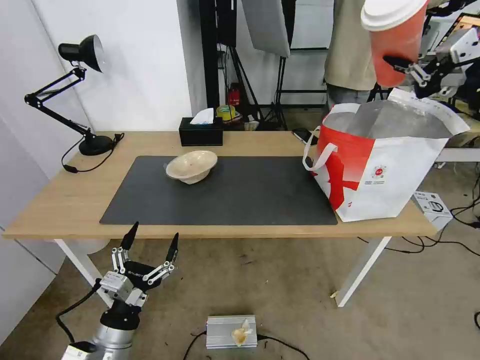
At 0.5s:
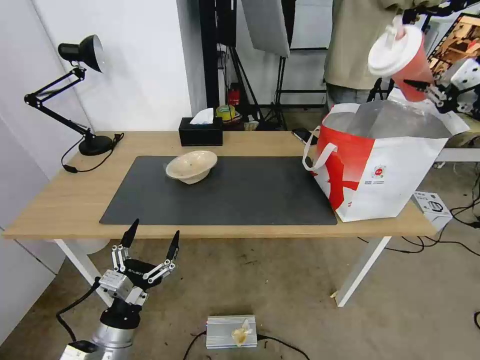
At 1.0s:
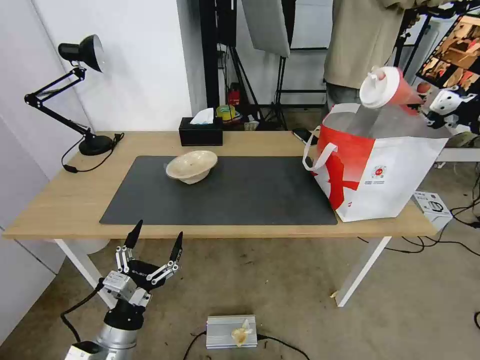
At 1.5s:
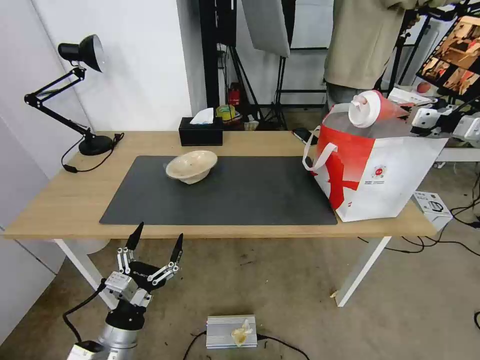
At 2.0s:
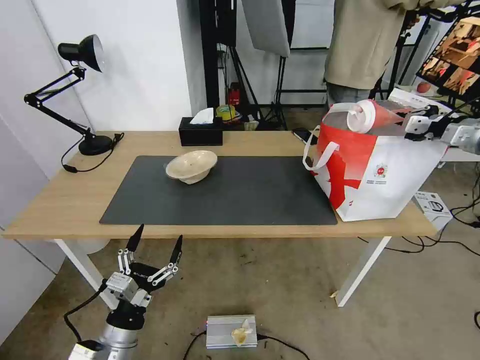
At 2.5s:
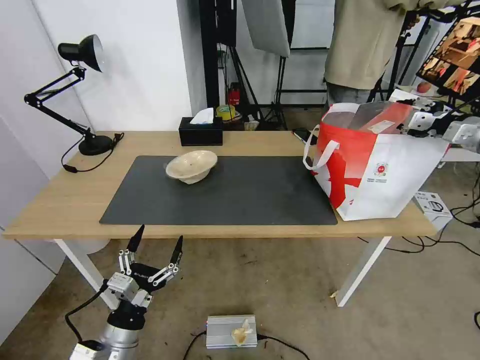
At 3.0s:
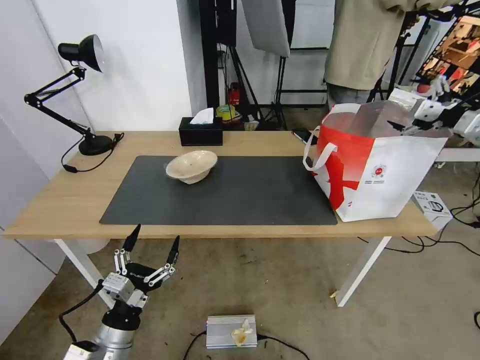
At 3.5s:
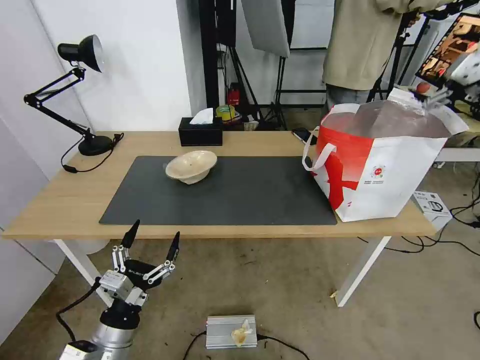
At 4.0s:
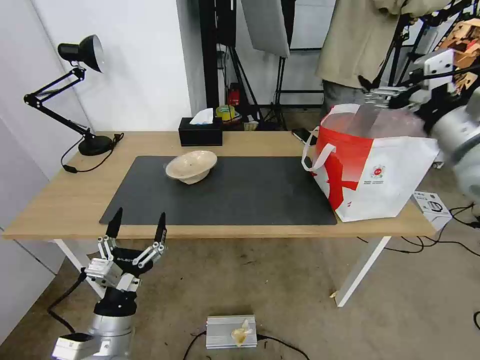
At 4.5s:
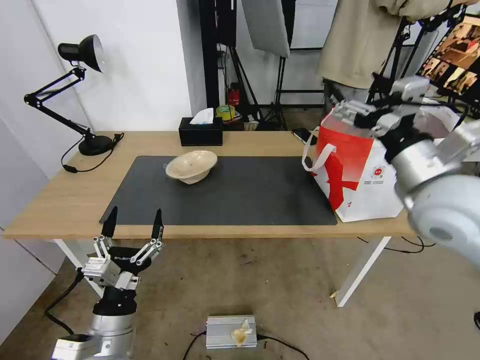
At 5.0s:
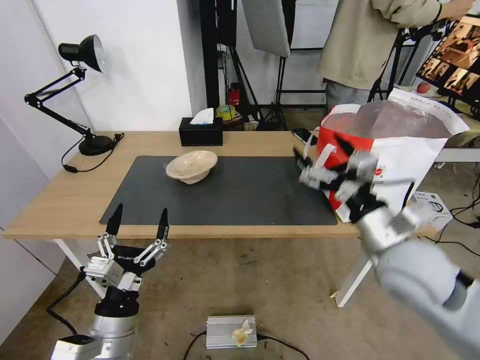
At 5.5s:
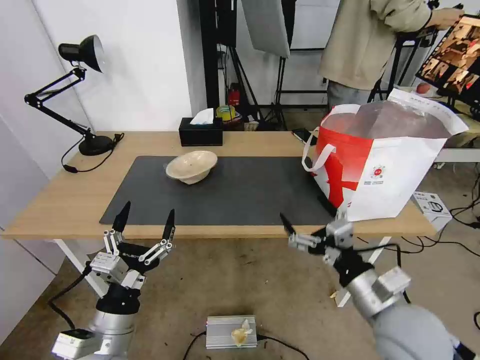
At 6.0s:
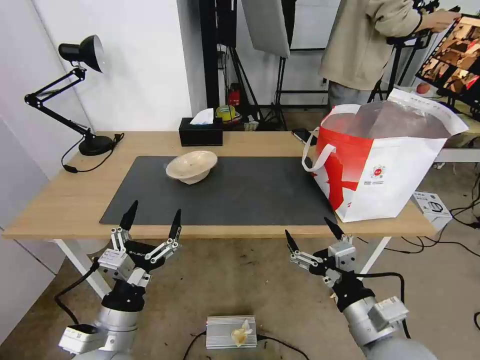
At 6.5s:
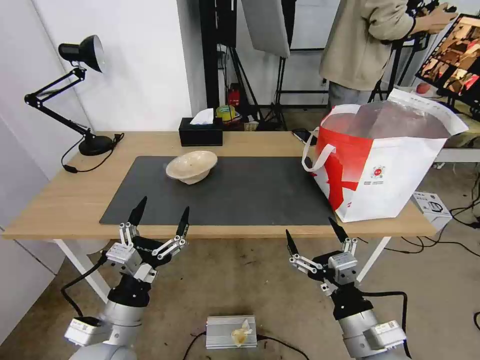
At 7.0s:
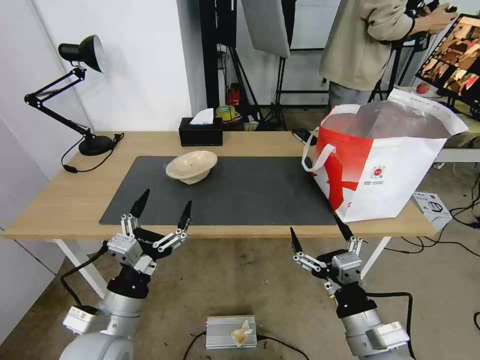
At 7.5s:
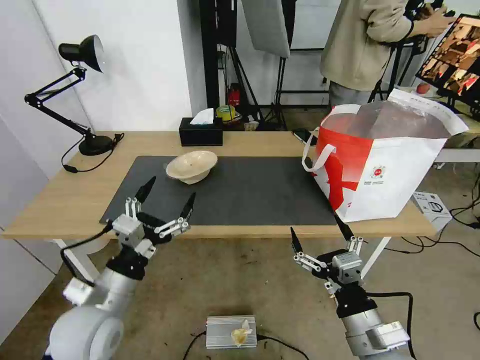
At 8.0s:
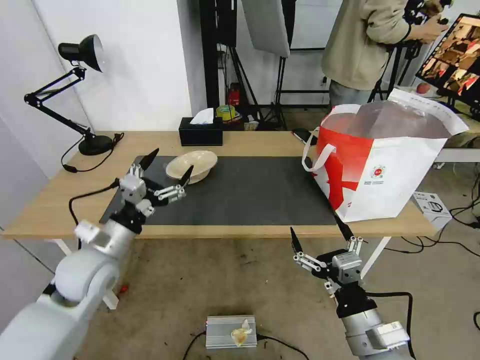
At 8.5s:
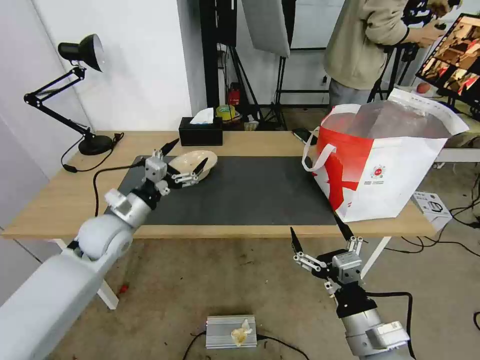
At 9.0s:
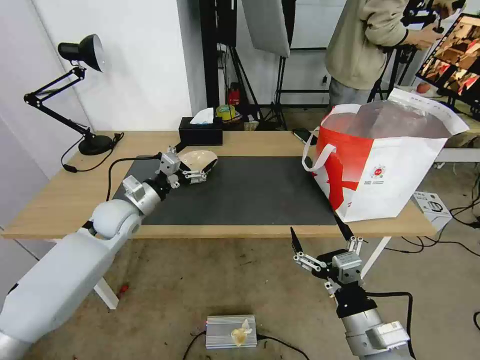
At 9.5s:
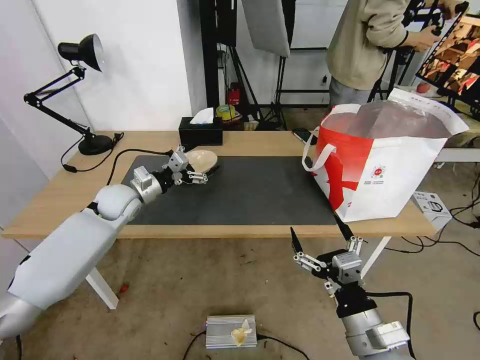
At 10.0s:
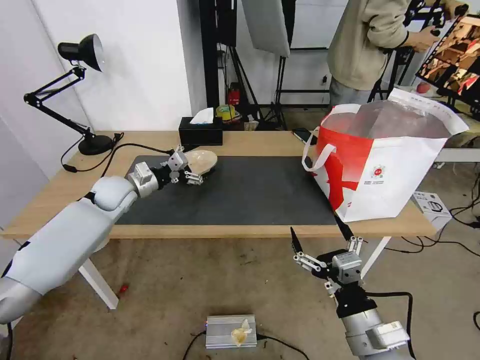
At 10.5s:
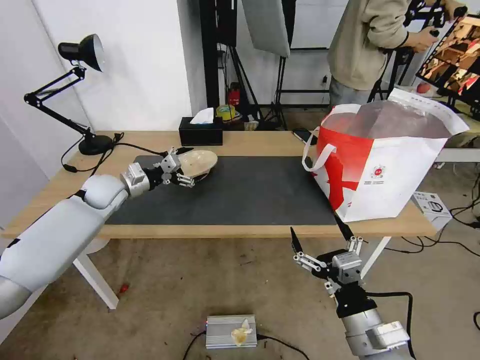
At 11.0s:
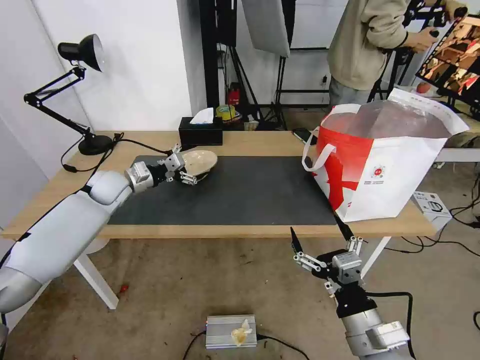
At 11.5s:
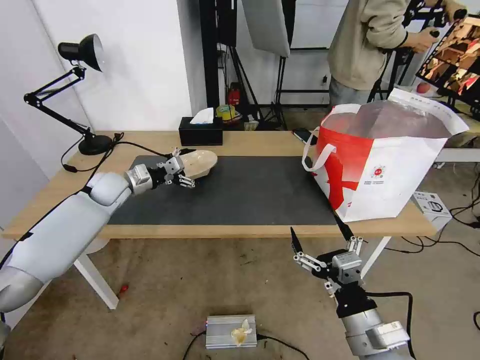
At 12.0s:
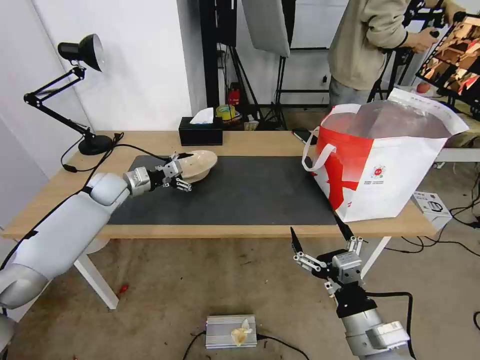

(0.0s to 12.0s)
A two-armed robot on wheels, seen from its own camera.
Task of the whole recording: Pick up the trash from the table and place it into the takeout bag.
0.0s - 2.0s: The right gripper moves forward, downward and to the right, roughly 15 cm.
2.0s - 4.0s: The right gripper is displaced to the left and backward by roughly 20 cm, and opens up.
4.0s - 6.0s: The right gripper moves downward, backward and to the left, roughly 35 cm.
6.0s - 8.0s: The left gripper moves forward and to the left, some 15 cm.
8.0s - 10.0s: The left gripper is displaced forward by some 20 cm.
10.0s - 12.0s: The grippers make only small movements.

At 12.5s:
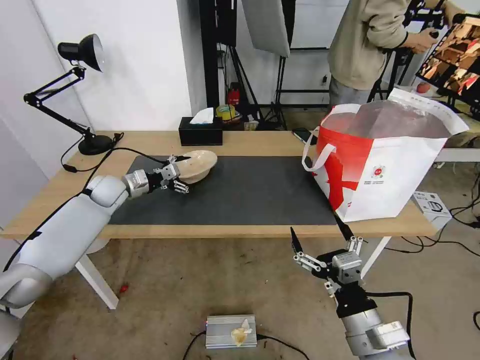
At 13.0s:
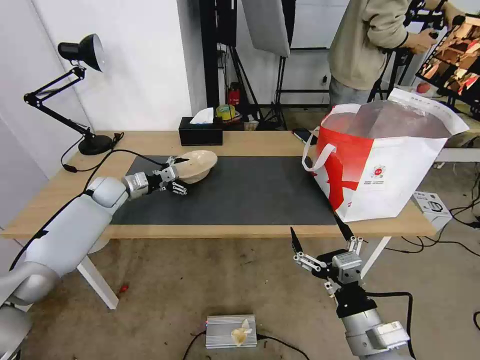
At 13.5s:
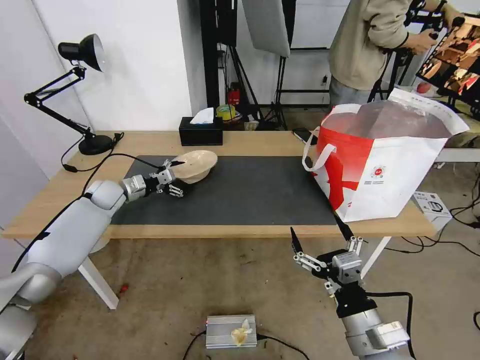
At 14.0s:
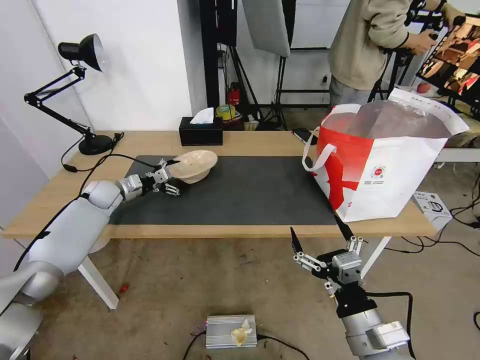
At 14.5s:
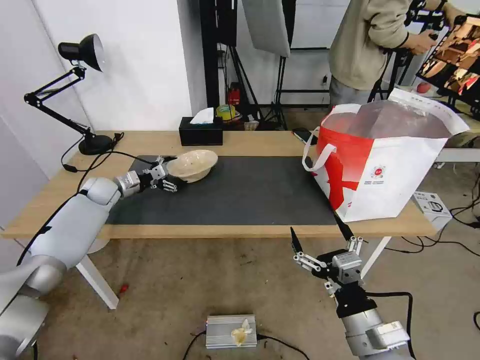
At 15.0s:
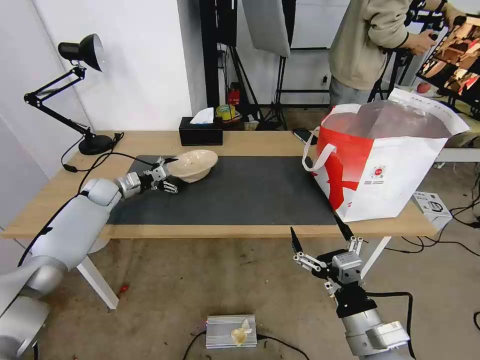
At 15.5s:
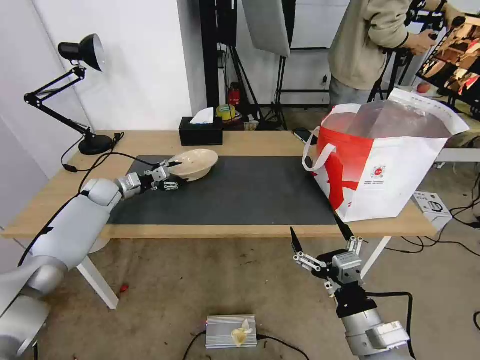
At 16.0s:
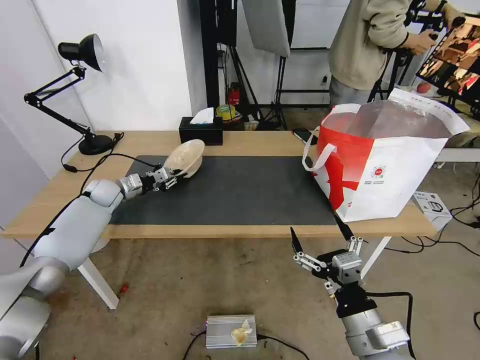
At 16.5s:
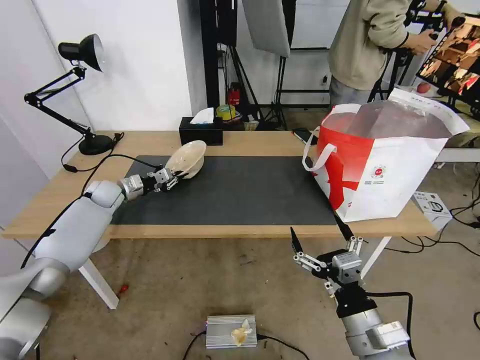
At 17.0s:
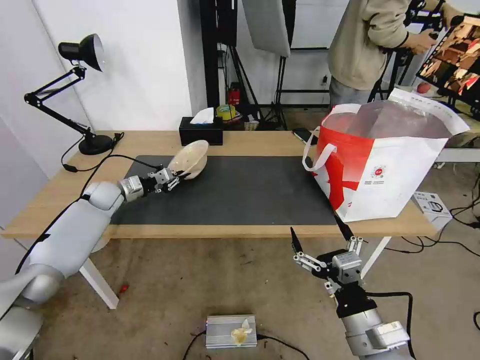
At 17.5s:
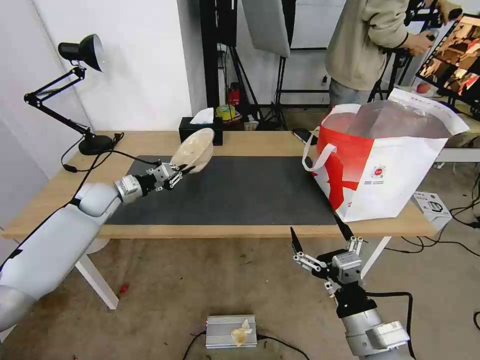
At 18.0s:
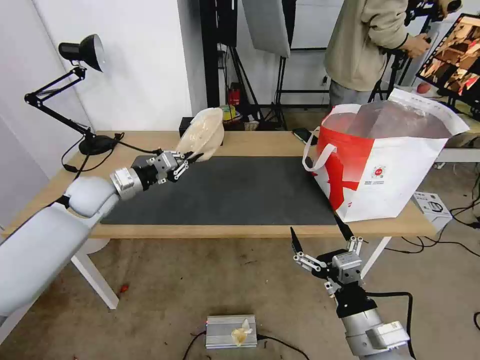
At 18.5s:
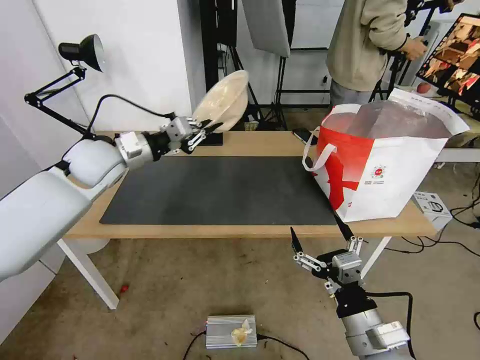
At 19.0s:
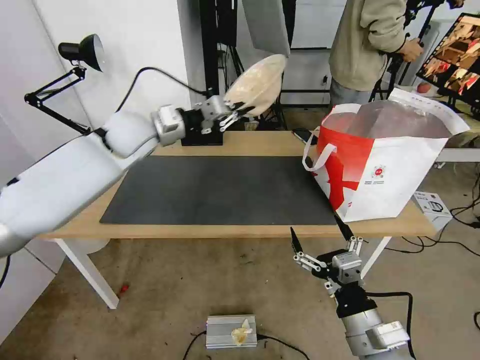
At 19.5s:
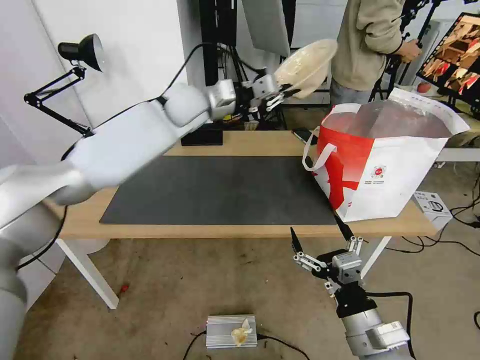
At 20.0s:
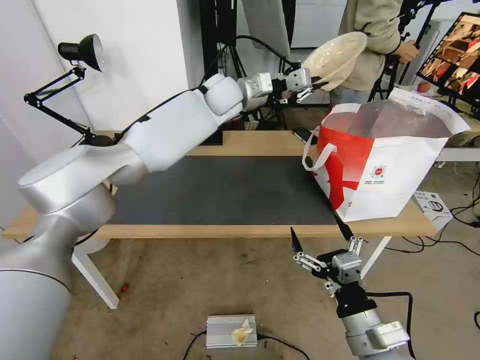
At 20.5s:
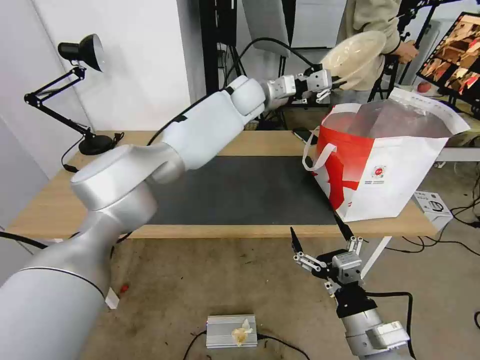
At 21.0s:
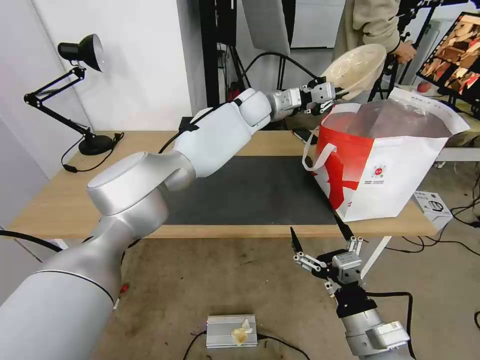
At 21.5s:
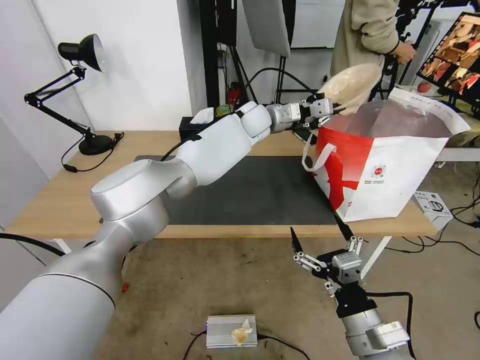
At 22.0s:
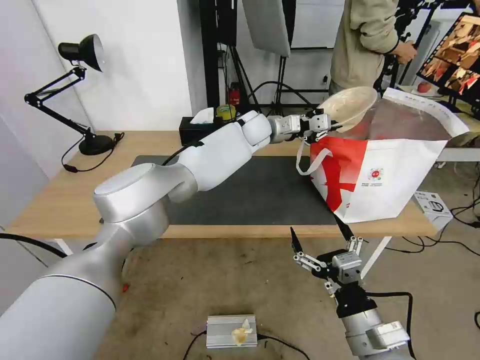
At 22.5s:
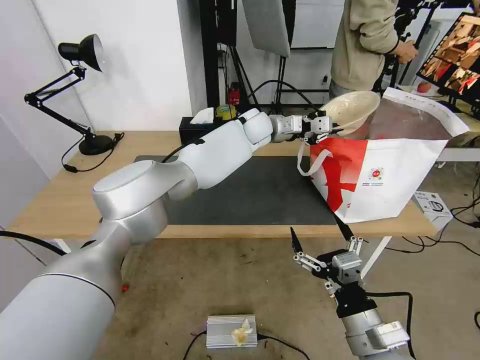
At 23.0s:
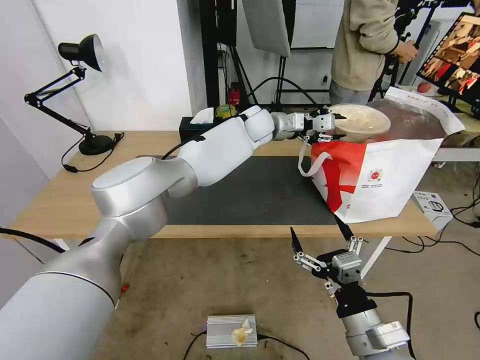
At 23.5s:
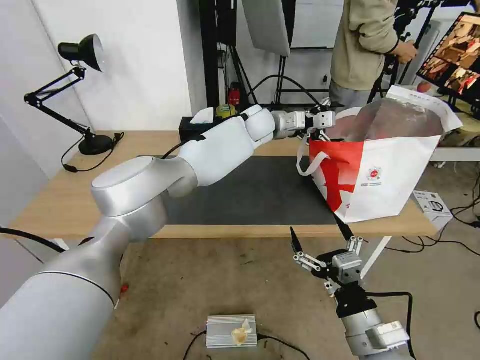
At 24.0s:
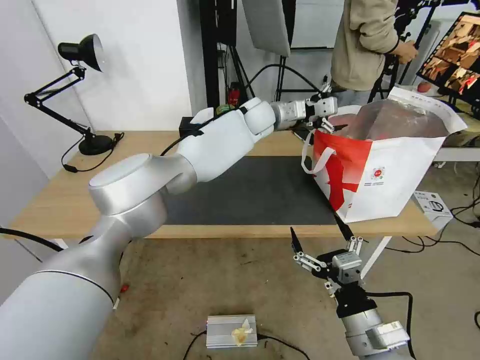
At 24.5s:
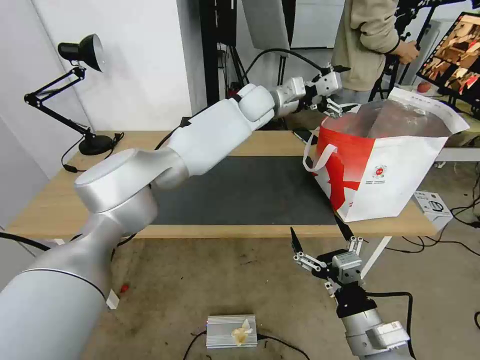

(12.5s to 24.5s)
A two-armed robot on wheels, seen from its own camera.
Task of the whole recording: Pick up the trash from the table and place it into the takeout bag.
12.5s - 14.5s: The left gripper ends up approximately 5 cm from where it was.
14.5s - 16.5s: The left gripper closes.
16.5s - 18.5s: The left gripper goes some 25 cm upward, to the right and backward.
18.5s - 20.5s: The left gripper travels to the right and forward by approximately 35 cm.
20.5s - 22.5s: The left gripper shifts about 10 cm downward.
22.5s - 24.5s: The left gripper moves upward, some 5 cm, and opens its fingers.

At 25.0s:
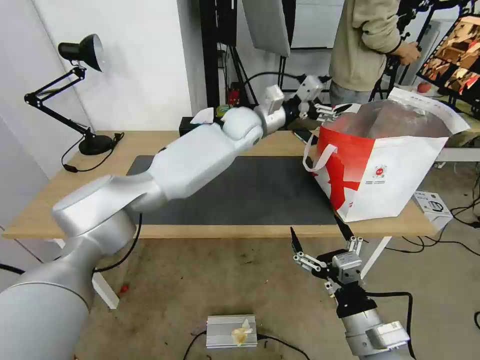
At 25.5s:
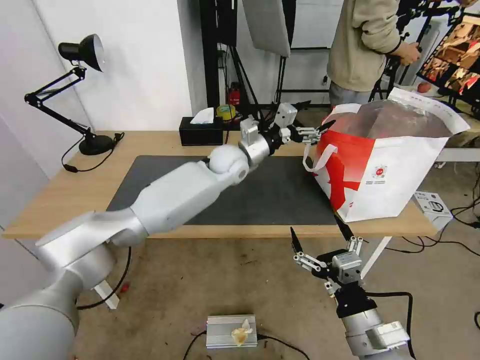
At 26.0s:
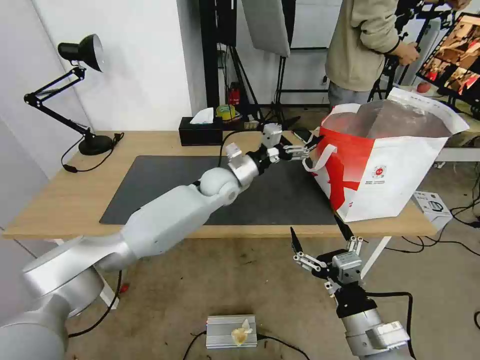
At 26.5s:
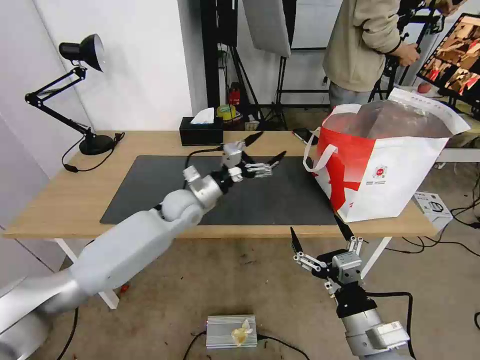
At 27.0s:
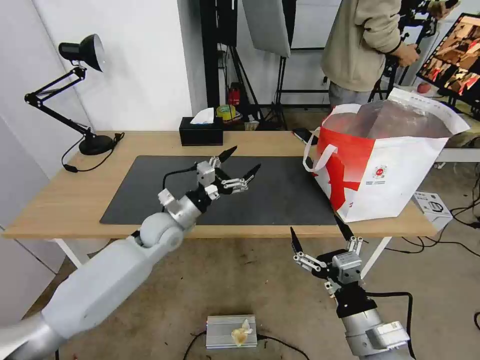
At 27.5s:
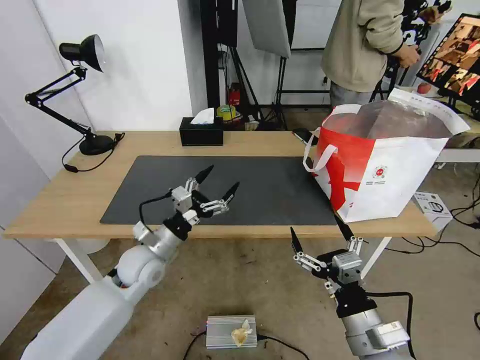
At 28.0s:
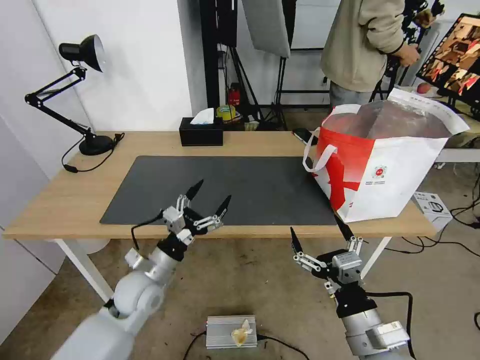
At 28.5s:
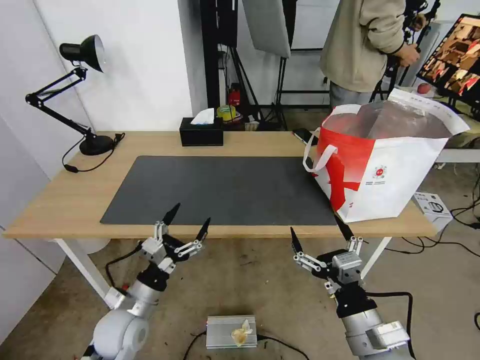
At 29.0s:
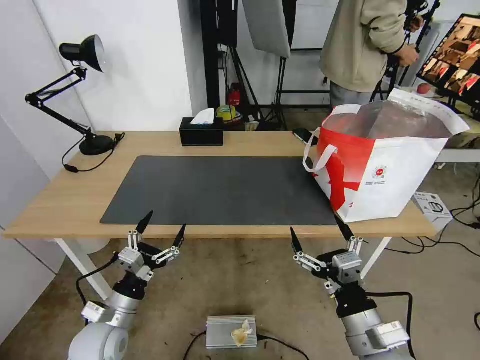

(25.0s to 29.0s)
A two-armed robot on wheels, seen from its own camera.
Task of the whole recording: Pick up the trash from the table and place it into the takeout bag.
25.0s - 27.0s: The left gripper heads to the left, downward and backward, covering approximately 30 cm.
27.0s - 29.0s: The left gripper travels backward, to the left and downward by approximately 25 cm.
